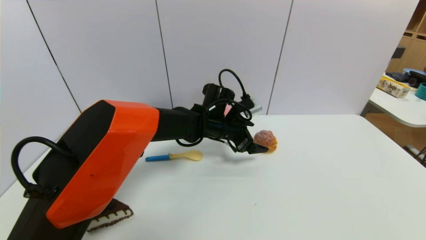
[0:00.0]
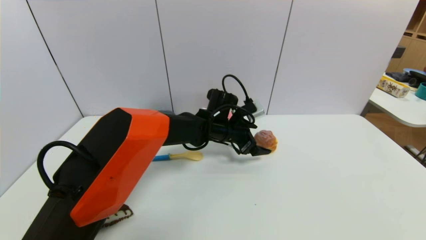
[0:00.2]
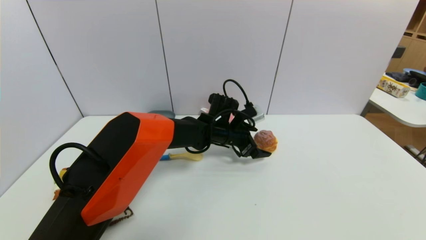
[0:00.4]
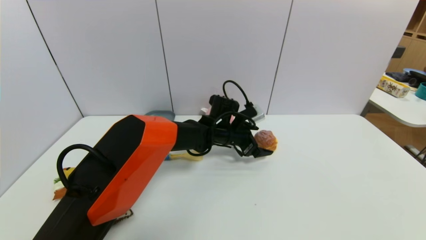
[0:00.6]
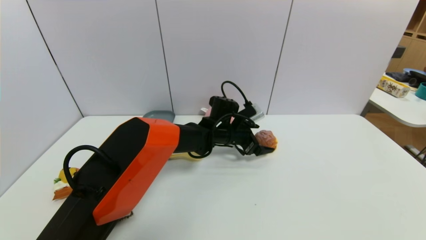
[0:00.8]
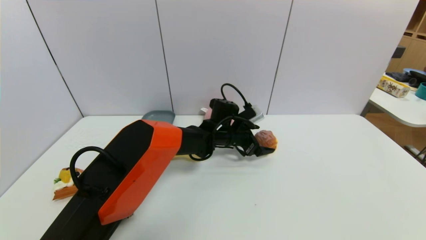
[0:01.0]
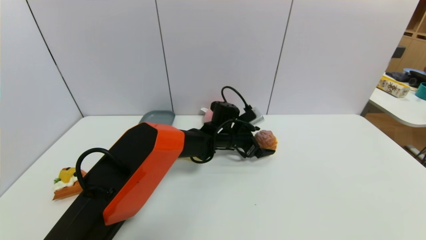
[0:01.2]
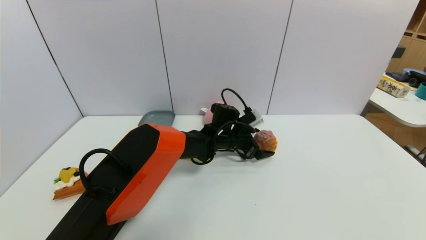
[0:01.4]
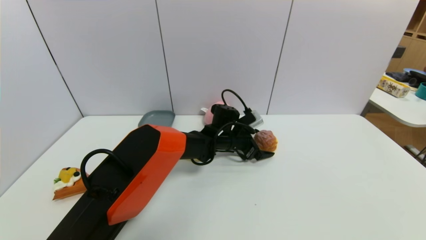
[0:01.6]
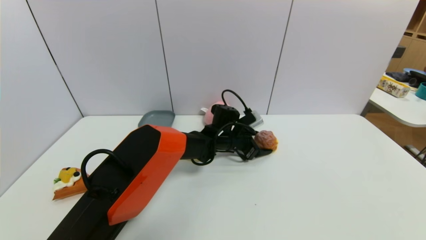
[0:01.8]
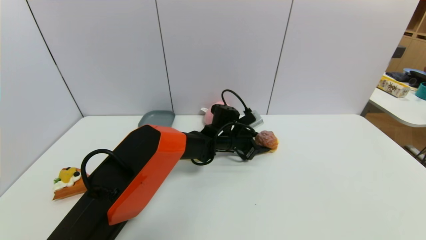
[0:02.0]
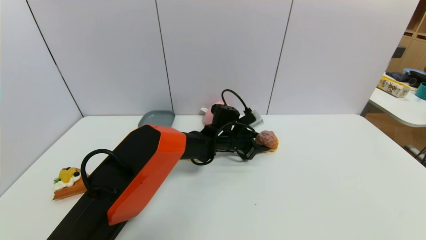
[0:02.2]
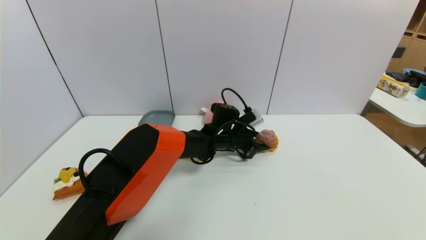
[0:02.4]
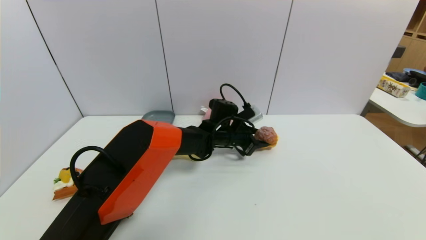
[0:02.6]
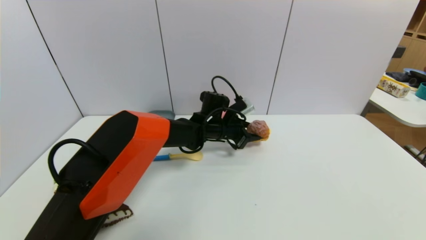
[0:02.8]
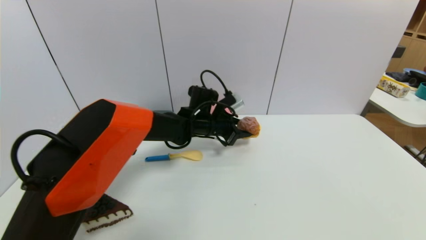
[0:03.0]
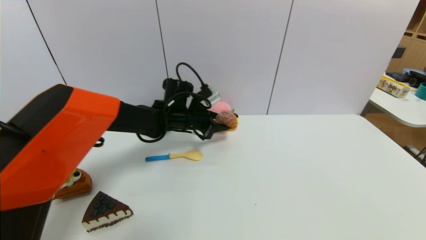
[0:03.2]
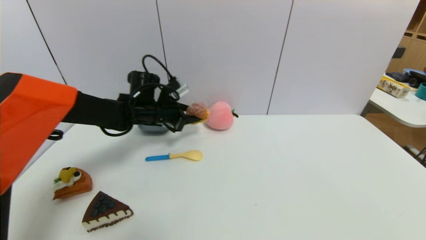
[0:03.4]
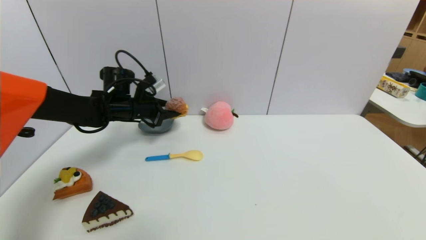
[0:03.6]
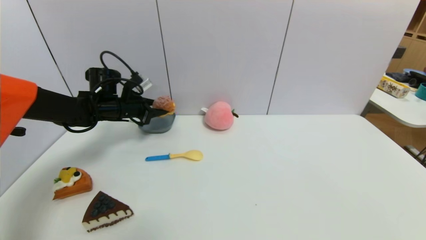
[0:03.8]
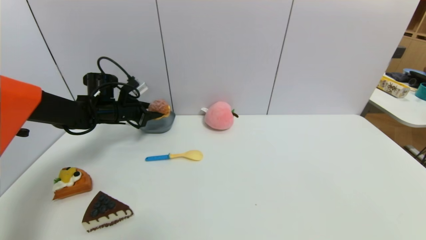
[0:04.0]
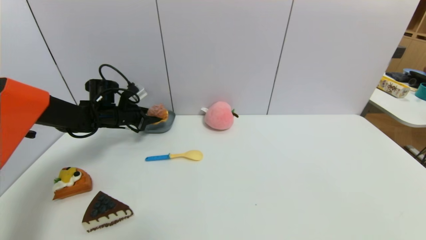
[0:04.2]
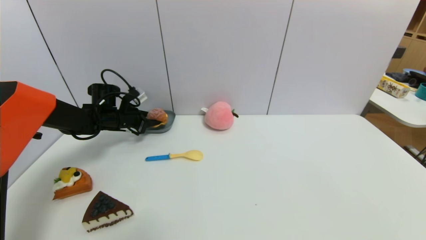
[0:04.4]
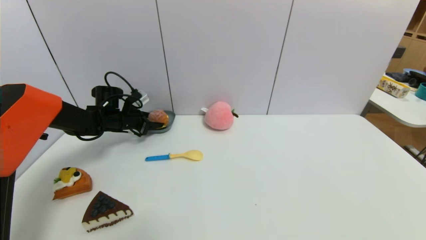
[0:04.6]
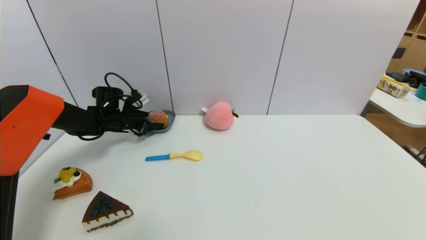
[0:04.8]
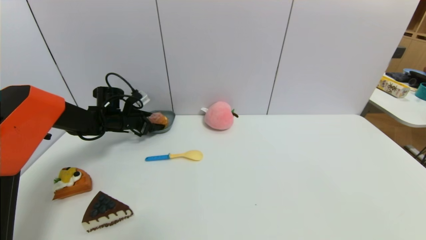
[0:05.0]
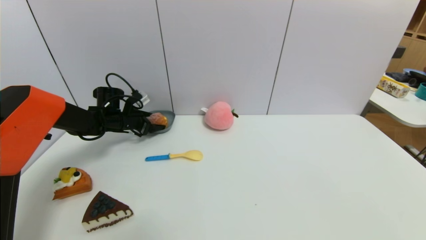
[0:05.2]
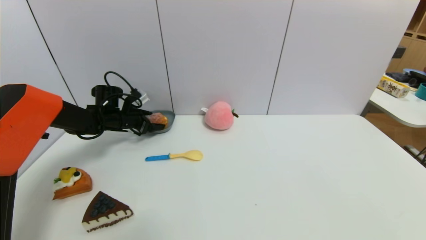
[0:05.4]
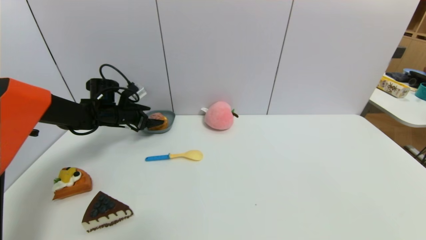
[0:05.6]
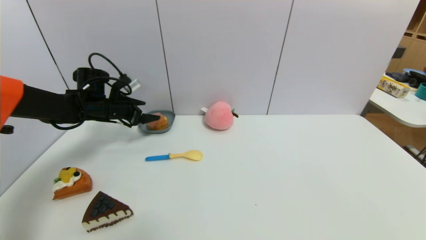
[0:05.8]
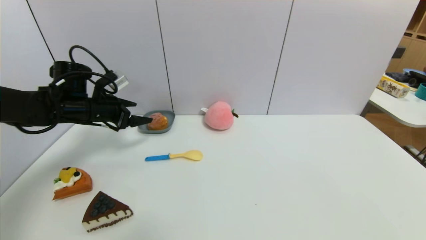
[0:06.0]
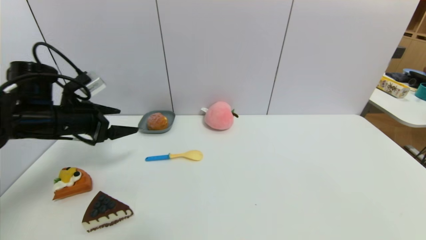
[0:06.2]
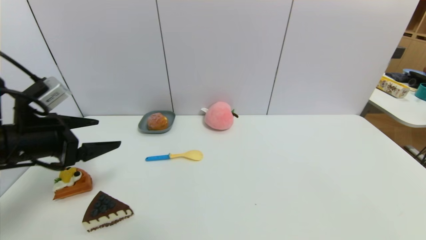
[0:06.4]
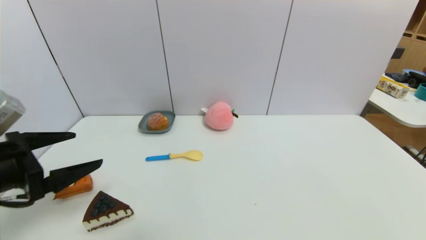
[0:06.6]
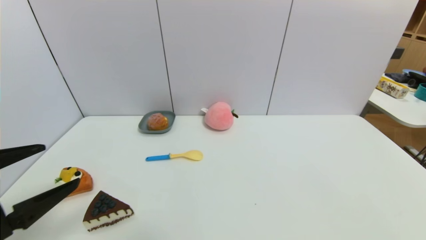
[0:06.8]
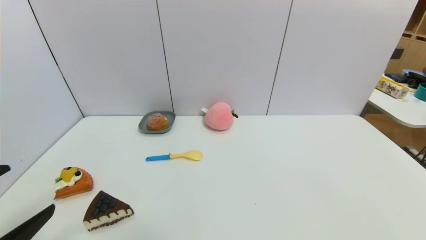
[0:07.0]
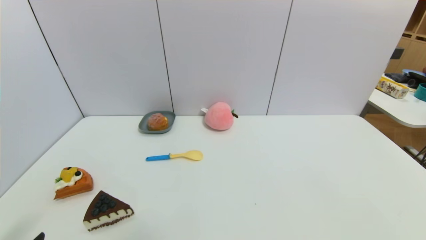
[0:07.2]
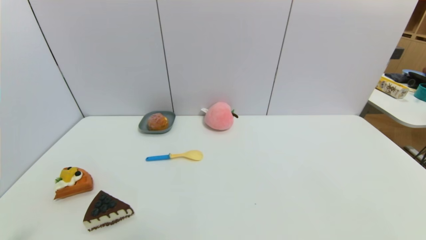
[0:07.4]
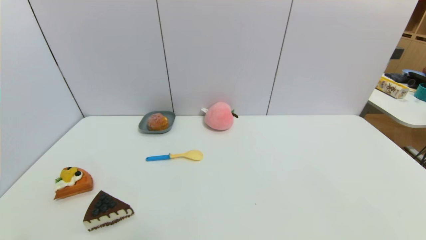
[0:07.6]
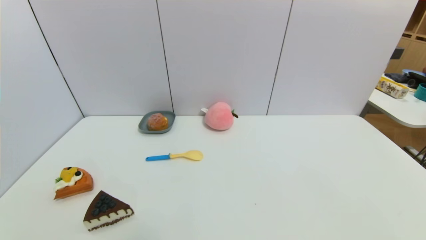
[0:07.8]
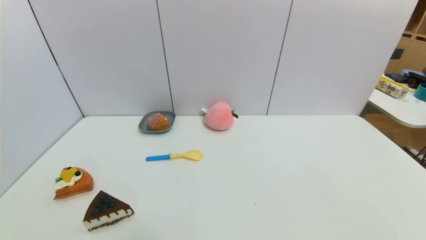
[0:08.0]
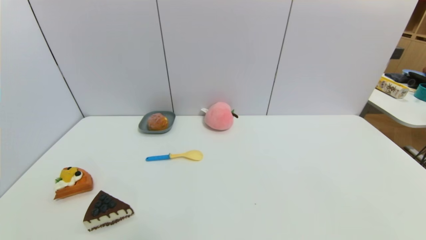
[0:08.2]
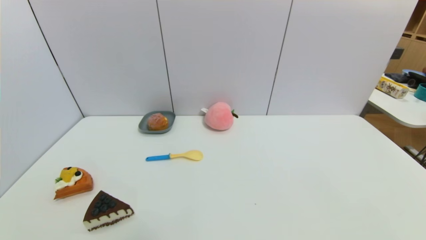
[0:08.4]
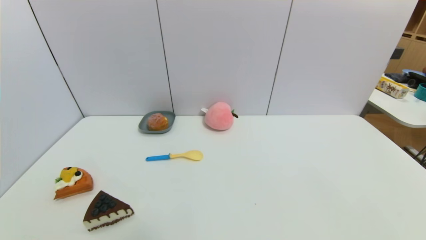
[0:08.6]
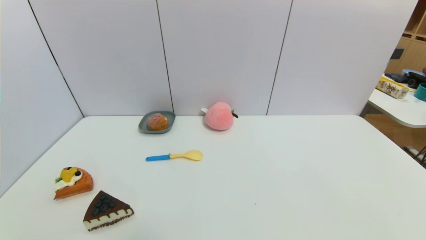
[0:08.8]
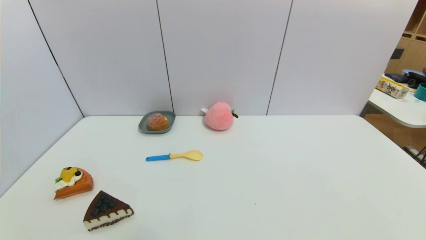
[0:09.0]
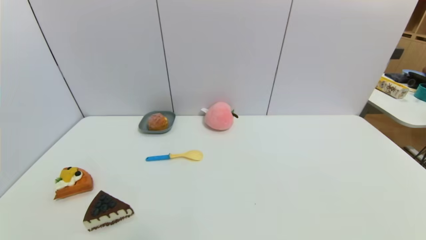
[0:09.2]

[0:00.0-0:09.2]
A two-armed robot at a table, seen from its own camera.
Task of the whole recording: use a gripper to pick the target object and place on the dish.
Step, 0:00.0 to 0:02.0: Grasp the round bread with the left gripper.
Step, 0:02.2 to 0:06.0: Place the round bread on the dish with the left gripper.
0:00.0 to 0:01.6: The left gripper goes approximately 5 cm downward.
0:01.6 to 0:03.0: The left gripper heads to the left and upward, covering approximately 10 cm, and closes up.
0:03.0 to 0:04.6: The left gripper goes roughly 25 cm to the left.
0:04.6 to 0:06.2: The left gripper travels backward and upward by some 20 cm, and opens up.
0:06.2 to 0:07.6: The left gripper heads backward and downward, covering roughly 35 cm.
